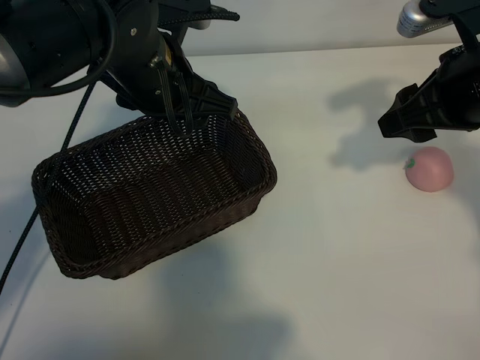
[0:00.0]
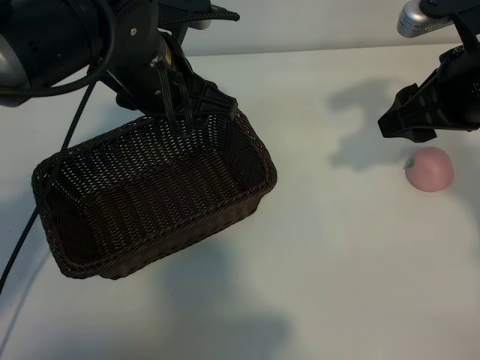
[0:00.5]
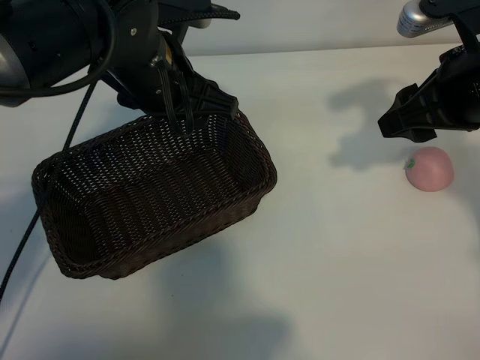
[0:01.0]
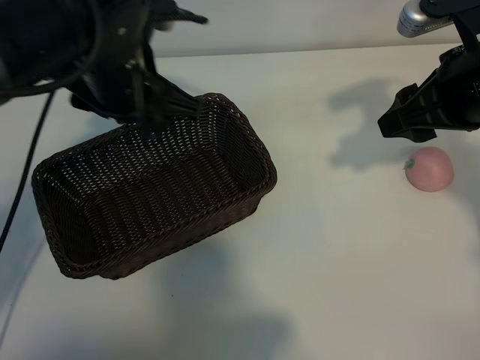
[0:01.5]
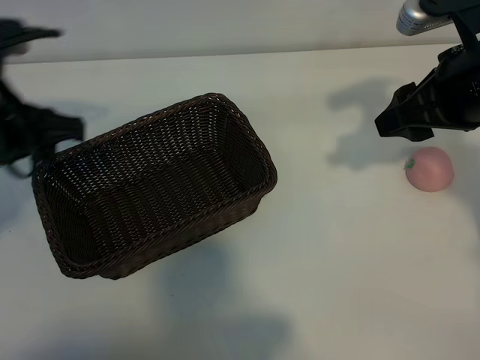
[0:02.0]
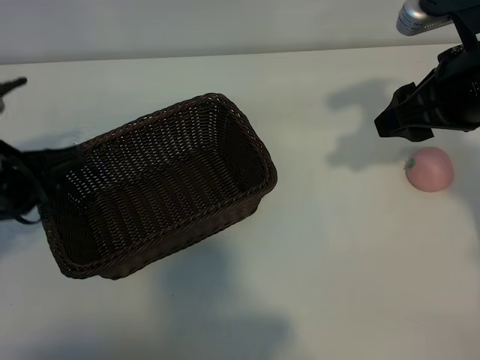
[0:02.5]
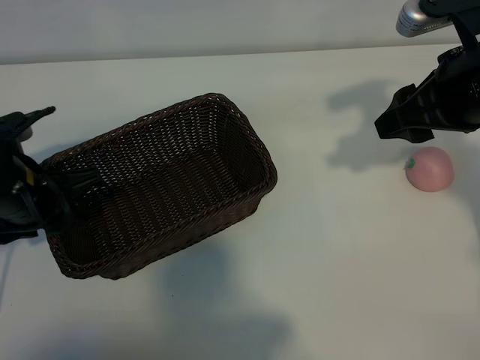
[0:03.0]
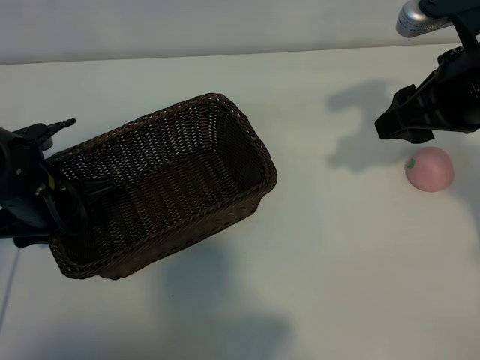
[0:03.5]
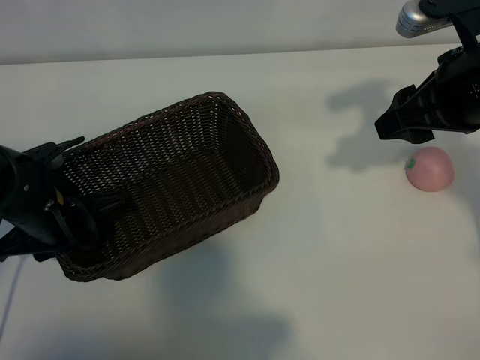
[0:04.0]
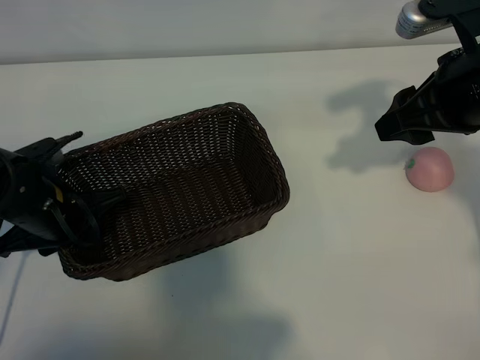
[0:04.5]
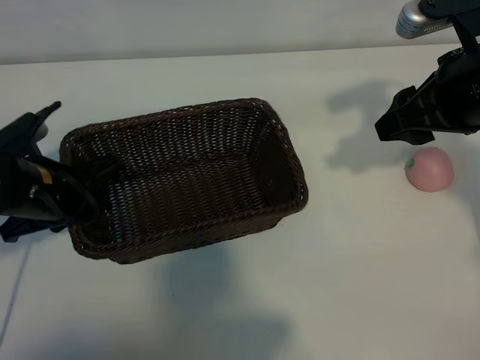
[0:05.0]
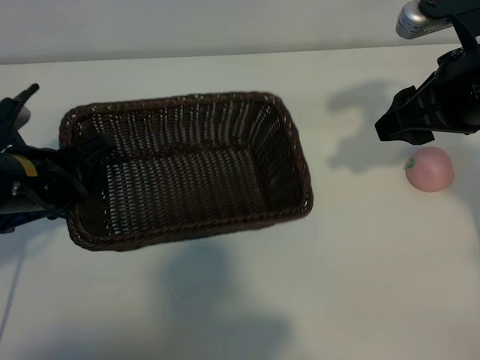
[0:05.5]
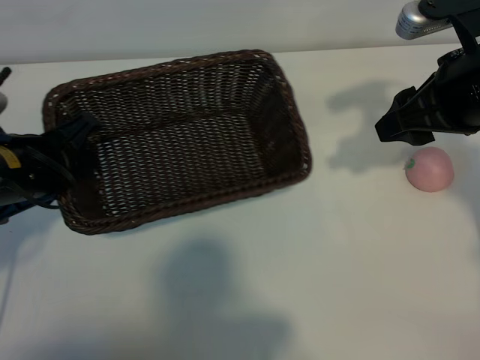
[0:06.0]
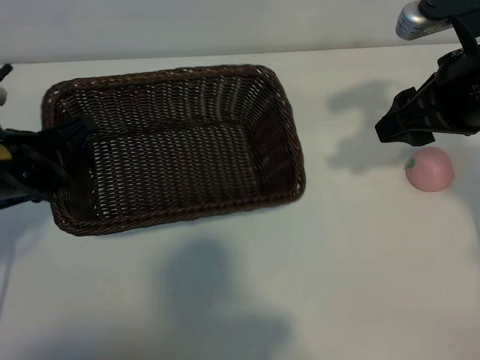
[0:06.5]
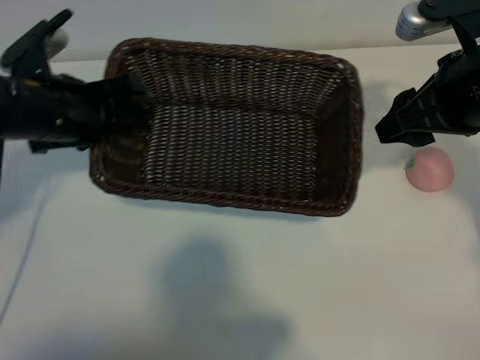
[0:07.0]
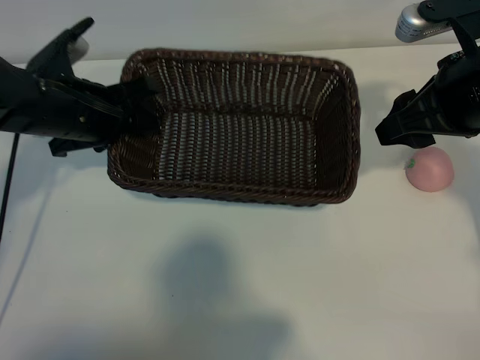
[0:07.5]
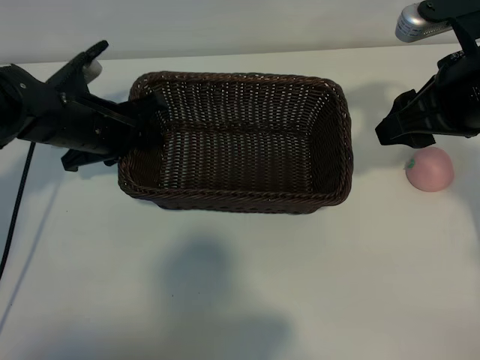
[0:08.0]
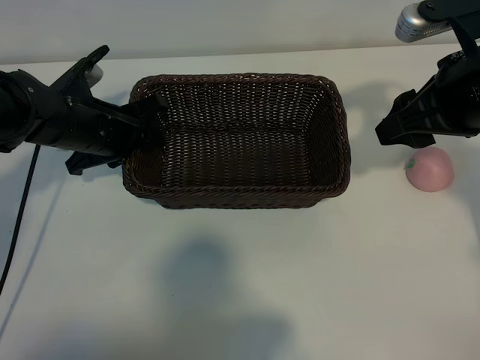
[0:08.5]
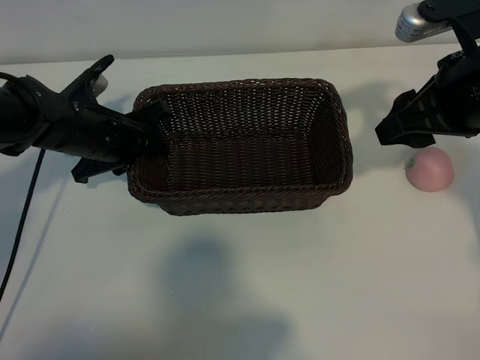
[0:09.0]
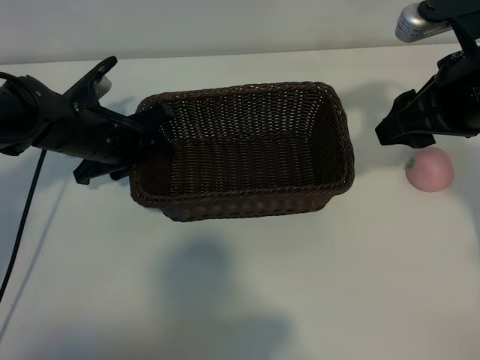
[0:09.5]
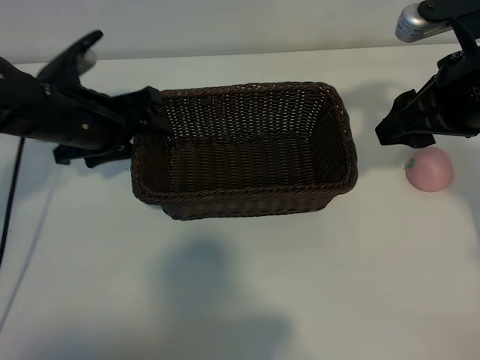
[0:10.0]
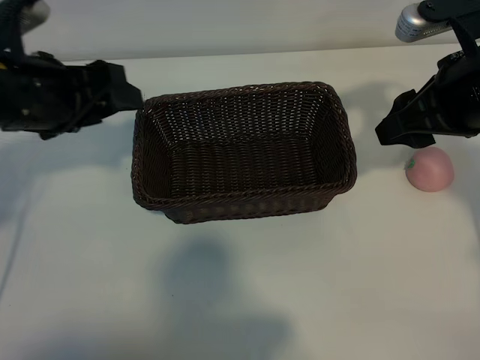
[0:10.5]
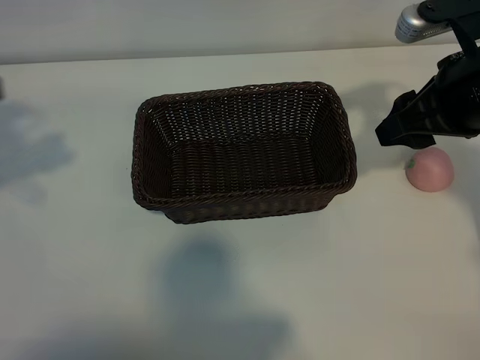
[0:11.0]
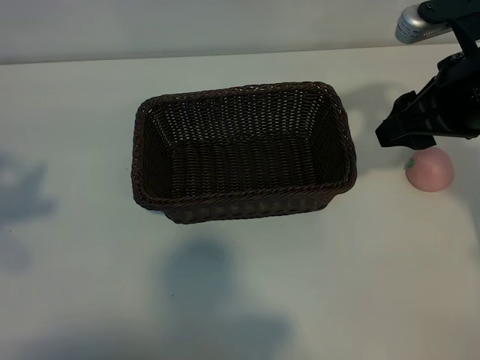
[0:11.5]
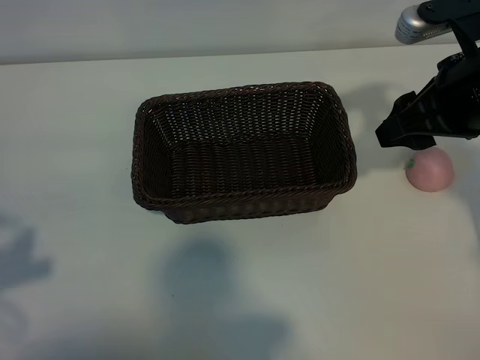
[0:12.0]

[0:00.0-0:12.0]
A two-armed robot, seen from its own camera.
Task of the whole recording: pick up the peach and put it into the basket.
Step, 0:01.0 to 0:04.0: Grasp the basket with left gripper.
Step, 0:05.0 to 0:10.0: Place the basket in the center of view with left gripper.

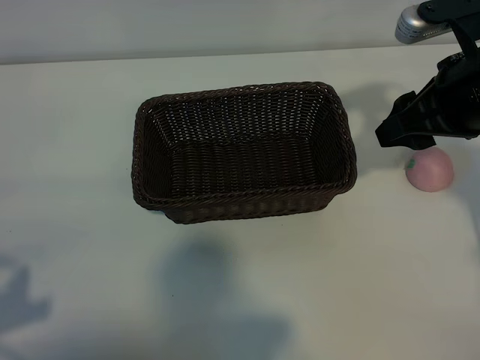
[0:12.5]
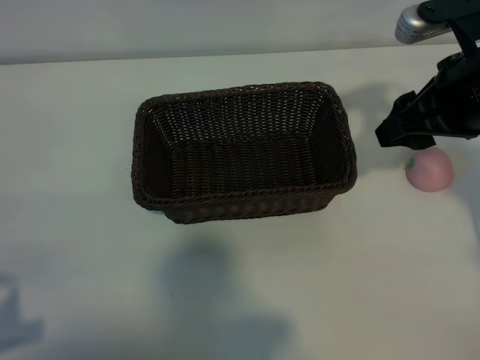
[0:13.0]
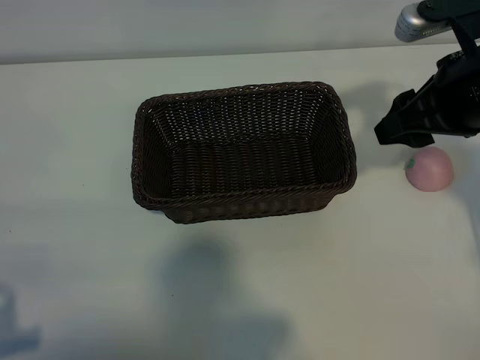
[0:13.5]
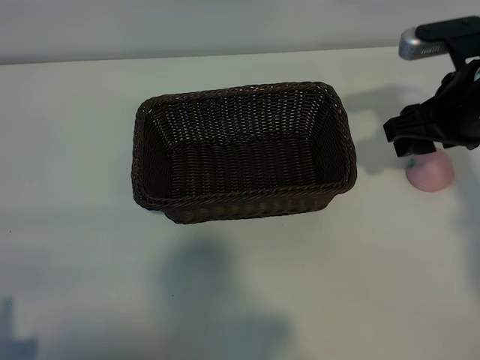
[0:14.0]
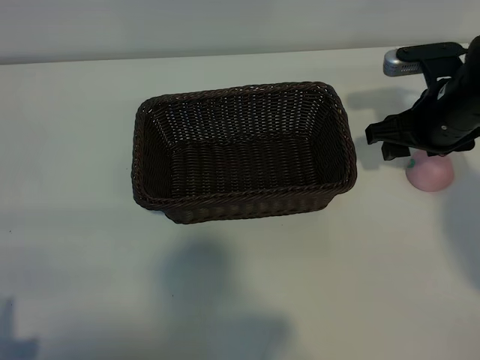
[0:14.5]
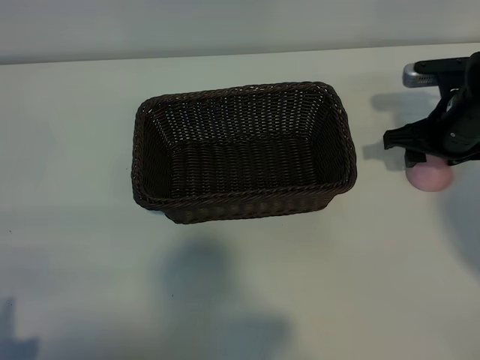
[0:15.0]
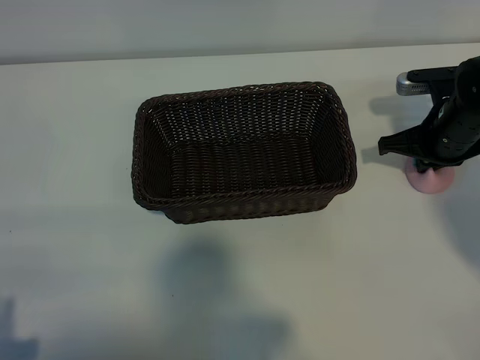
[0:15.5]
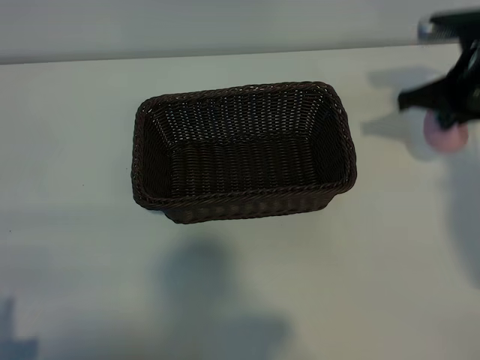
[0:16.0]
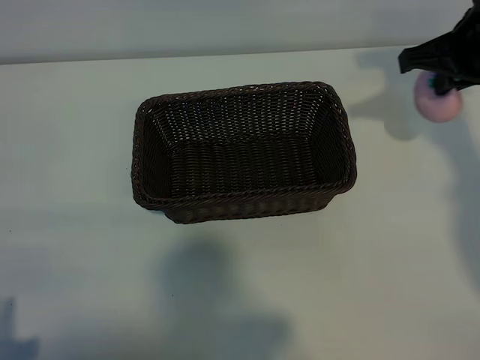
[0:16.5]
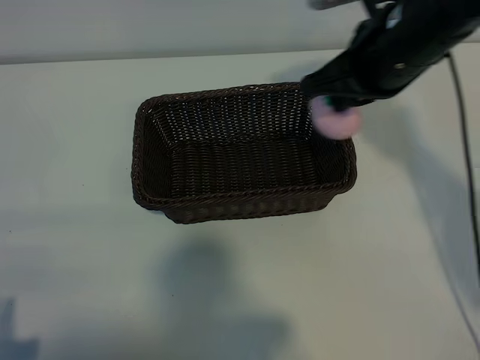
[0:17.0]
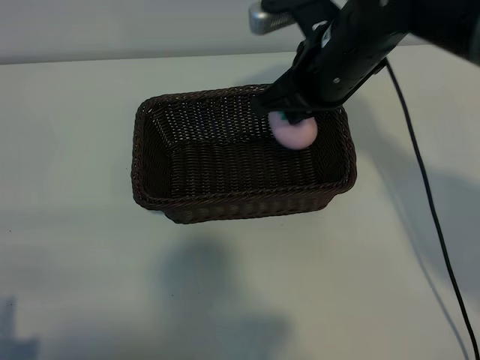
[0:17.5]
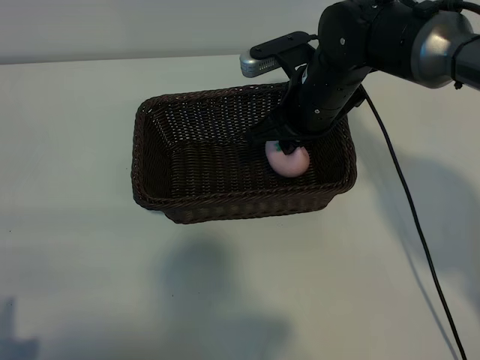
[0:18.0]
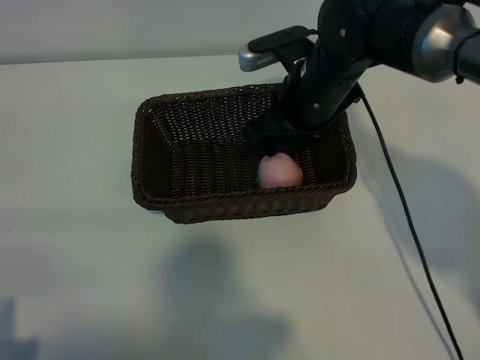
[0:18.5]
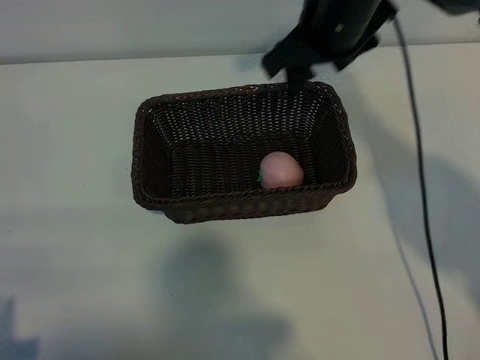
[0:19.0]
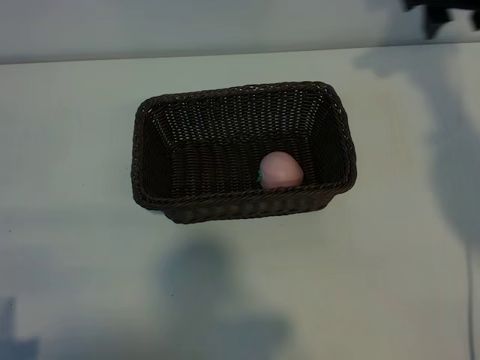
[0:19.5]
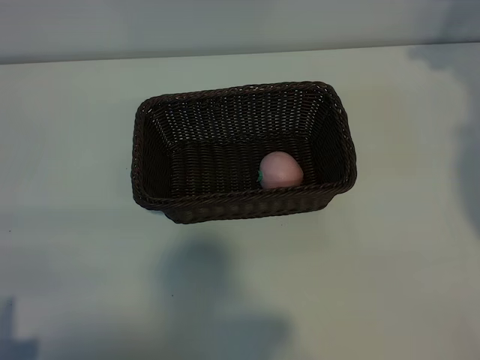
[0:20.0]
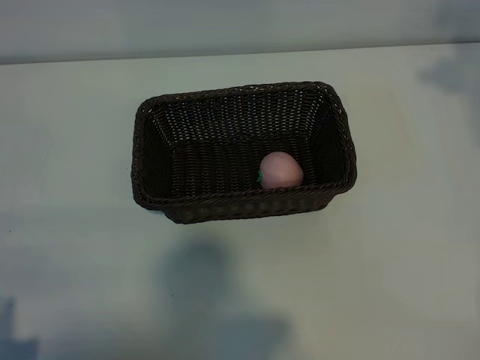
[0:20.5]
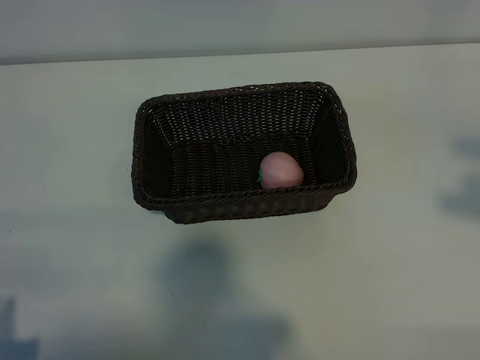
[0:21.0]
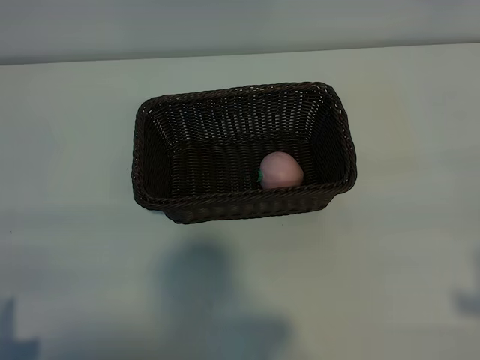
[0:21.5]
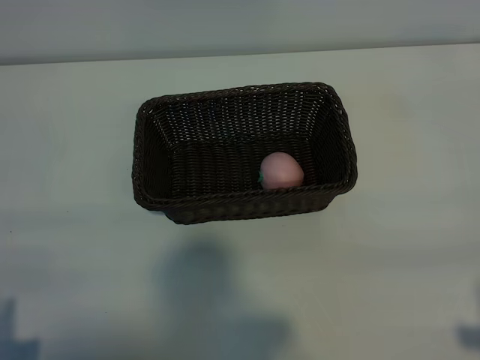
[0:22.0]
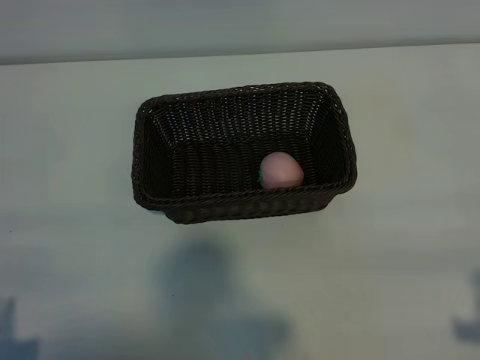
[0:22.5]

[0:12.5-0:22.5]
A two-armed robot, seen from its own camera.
Task of the whole recording: pick up the peach and put it into the basket.
Step, 0:12.5 to 0:15.5: Grasp the peach with right gripper.
Step, 0:16.0 to 0:18.5: Place the peach in the basket with right gripper.

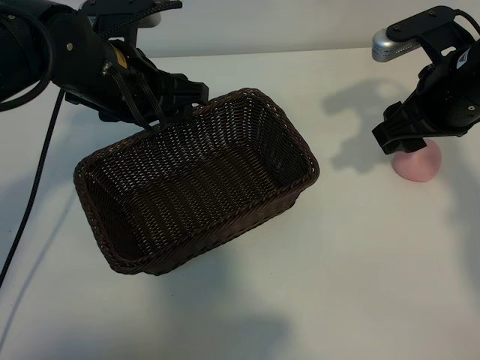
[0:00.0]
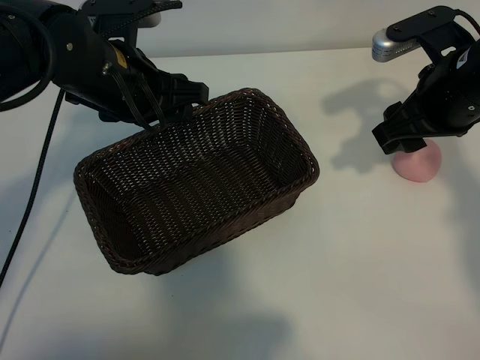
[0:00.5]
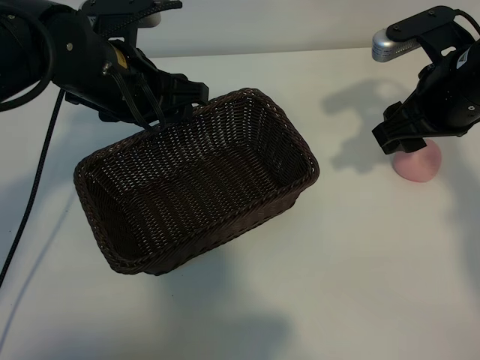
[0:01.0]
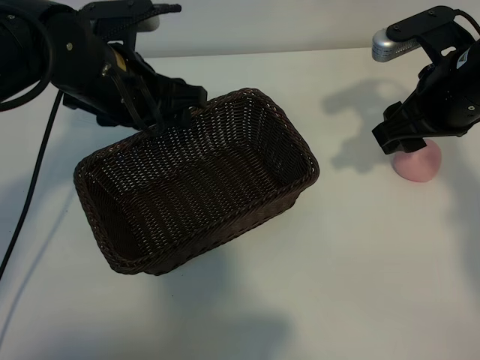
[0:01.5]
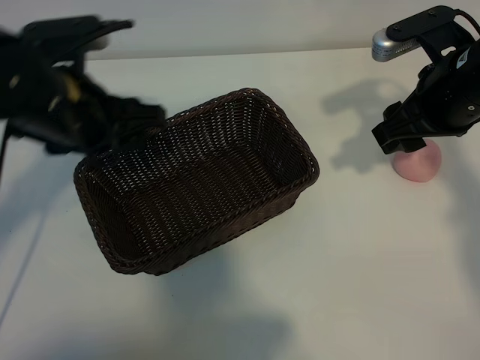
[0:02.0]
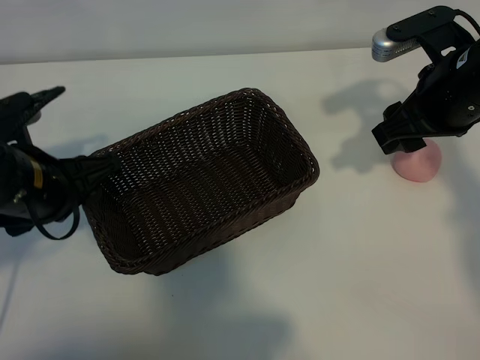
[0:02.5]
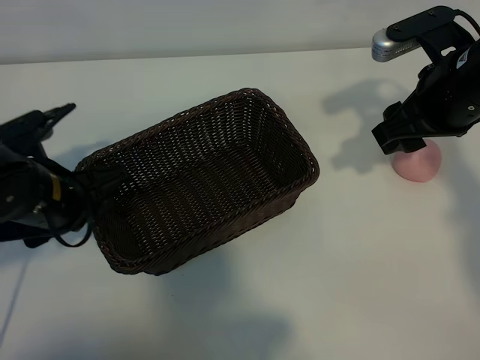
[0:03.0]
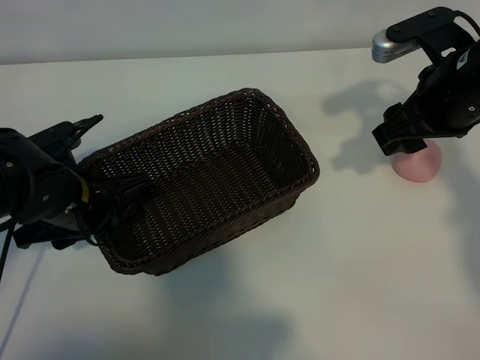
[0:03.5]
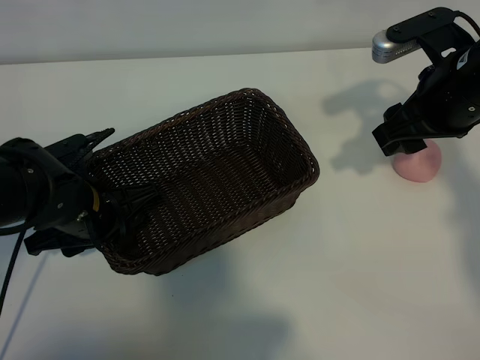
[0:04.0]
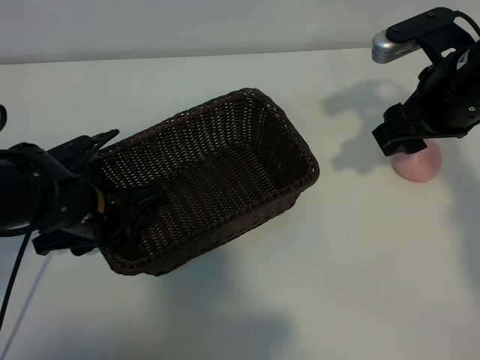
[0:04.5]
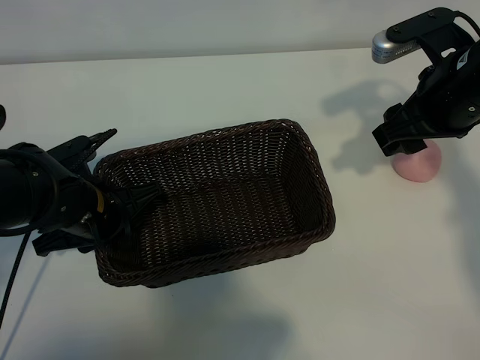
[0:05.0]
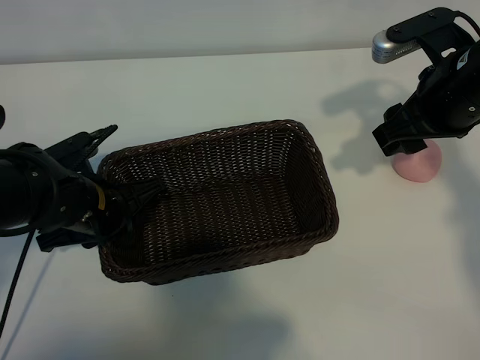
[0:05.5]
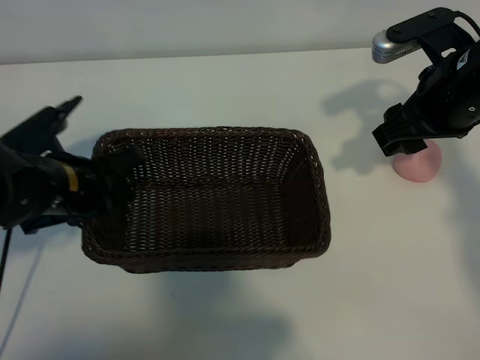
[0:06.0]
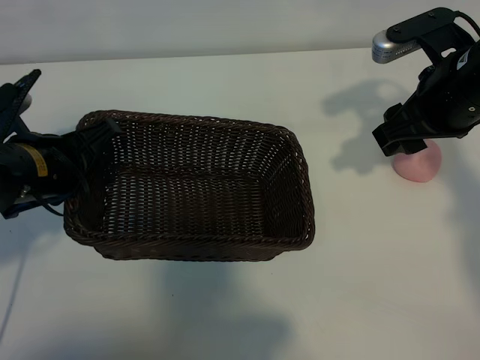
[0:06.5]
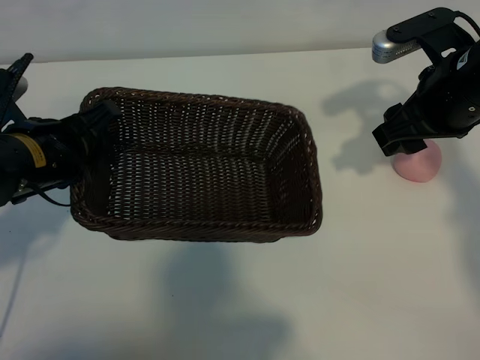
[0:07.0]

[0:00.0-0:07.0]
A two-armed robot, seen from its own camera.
Task of the whole recording: pick up the peach and put it into the basket.
Step, 0:01.5 to 0:04.5: Grasp the basket with left gripper.
